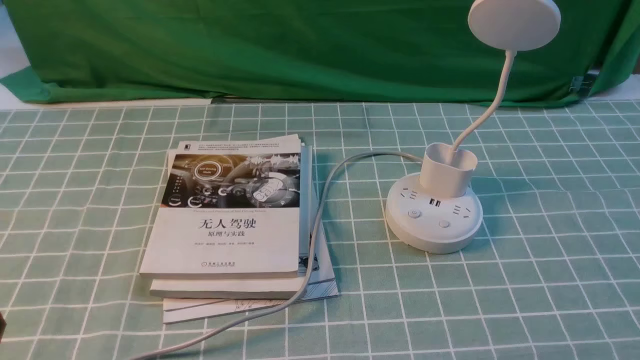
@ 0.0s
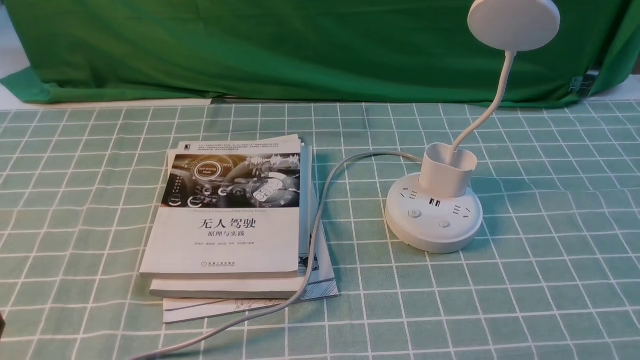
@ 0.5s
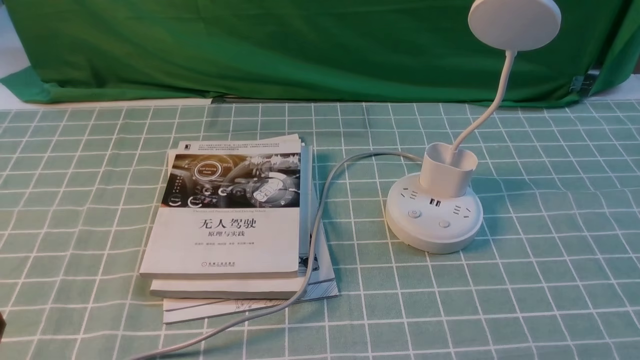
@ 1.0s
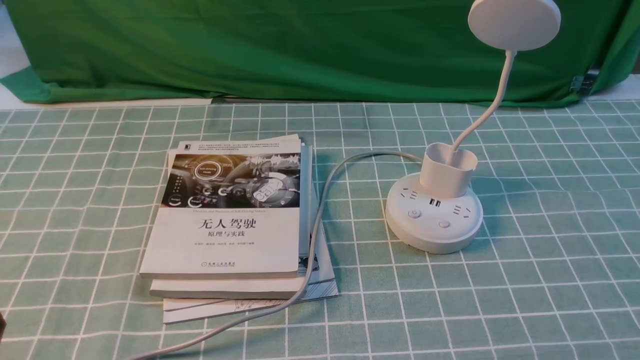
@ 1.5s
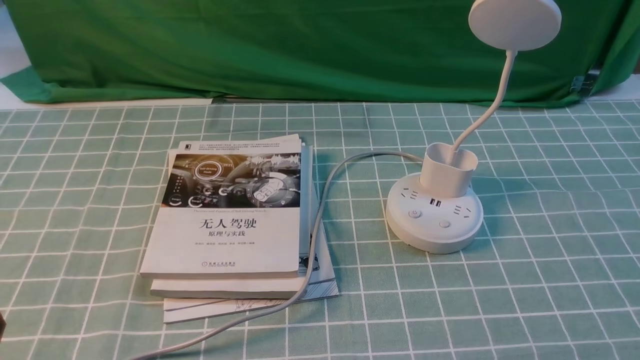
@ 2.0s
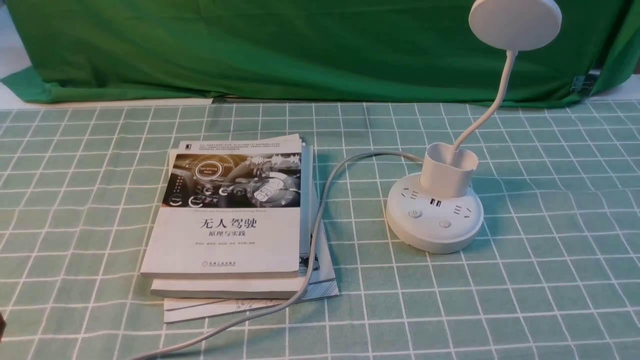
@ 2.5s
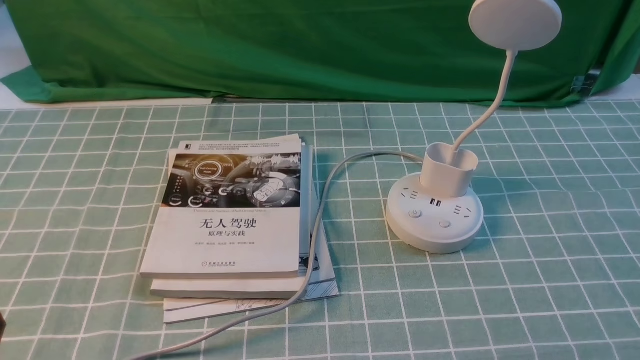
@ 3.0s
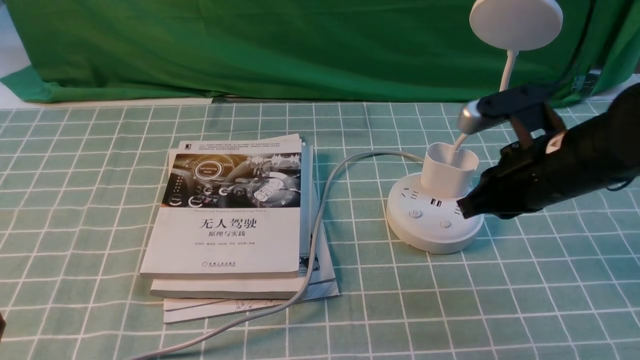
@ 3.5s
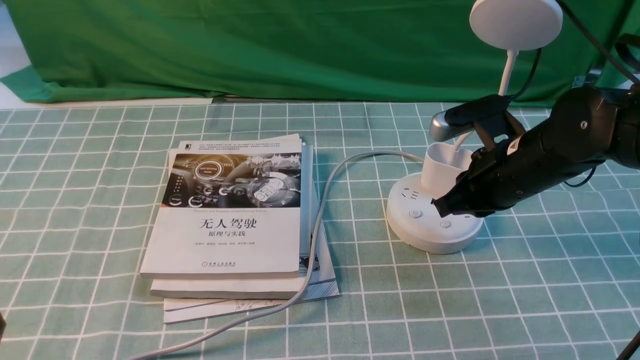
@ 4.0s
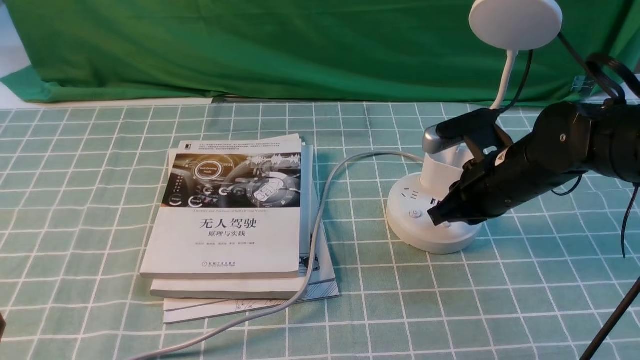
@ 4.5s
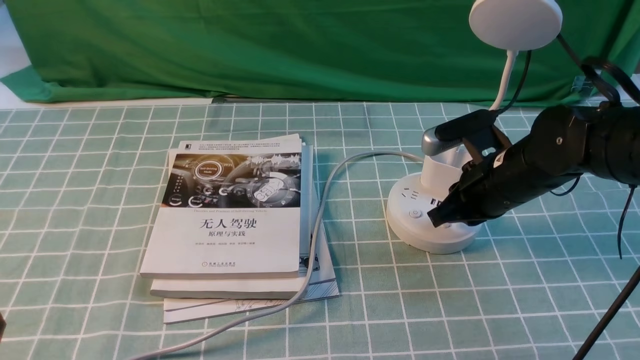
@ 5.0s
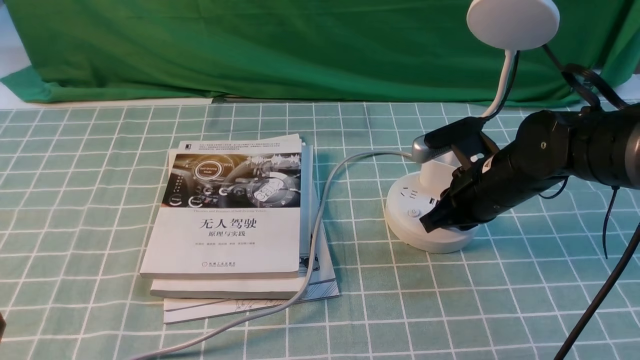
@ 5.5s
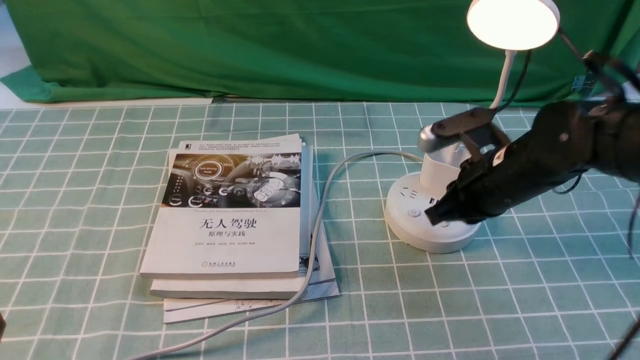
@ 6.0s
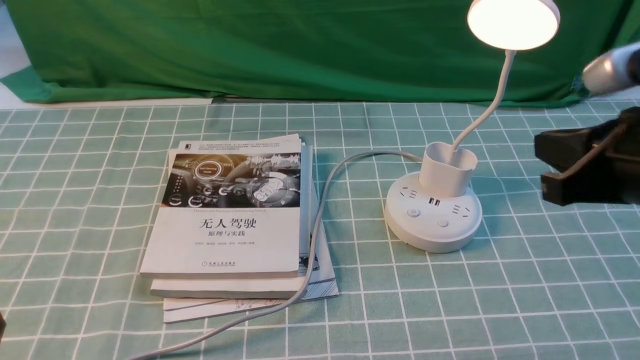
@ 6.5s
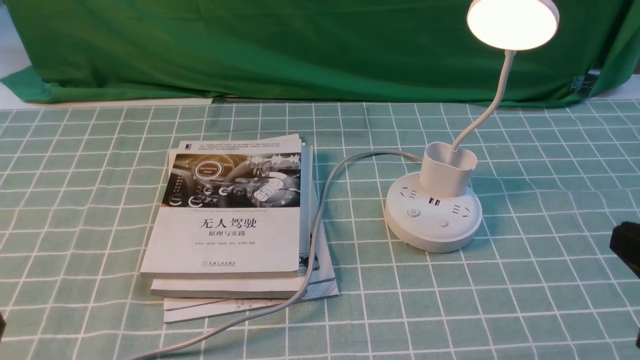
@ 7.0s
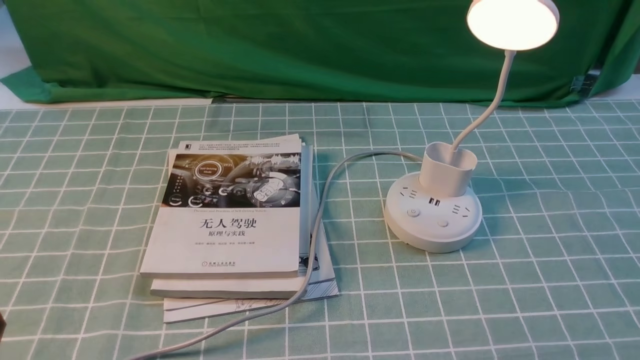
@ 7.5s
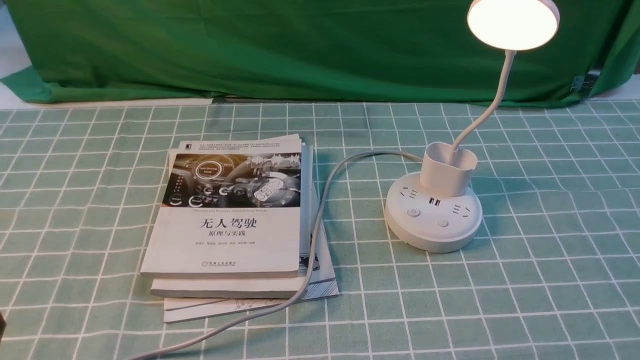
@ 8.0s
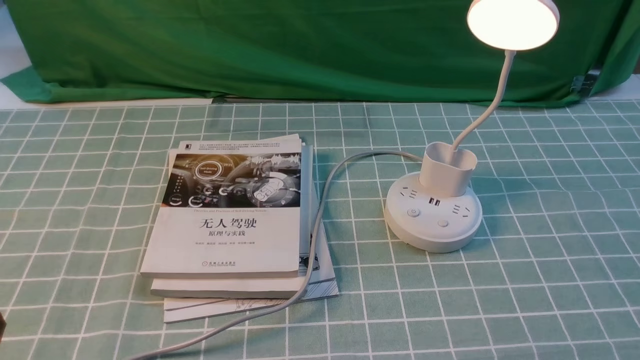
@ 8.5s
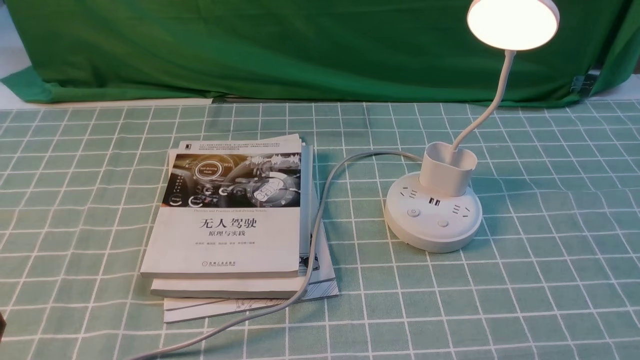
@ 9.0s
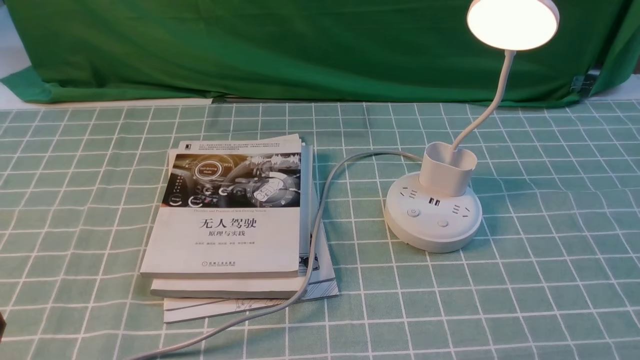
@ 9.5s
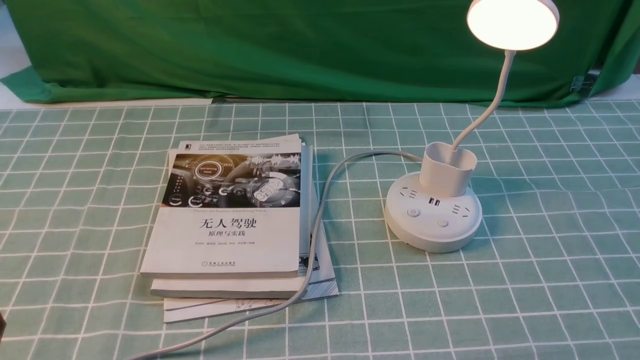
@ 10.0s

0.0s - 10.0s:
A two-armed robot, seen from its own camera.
Step, 0.0s - 6.0s: use the right arm to press the button switch on the lamp holder.
2.0s - 4.0s: The right gripper goes some 30 cm forward and to the left, and closes up.
4.0s - 6.0s: There are only small adjustments of the grippers.
6.0s - 8.0s: The right gripper shifts roughly 30 cm backward and to the right, and opens.
